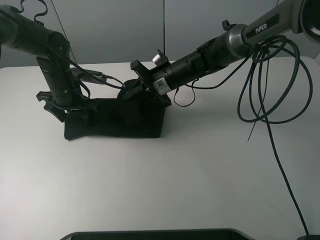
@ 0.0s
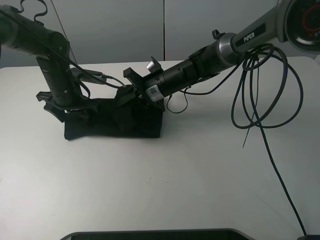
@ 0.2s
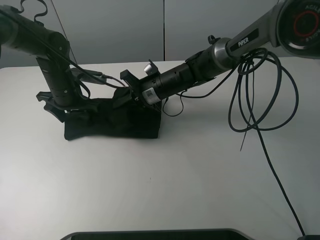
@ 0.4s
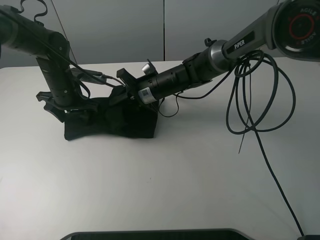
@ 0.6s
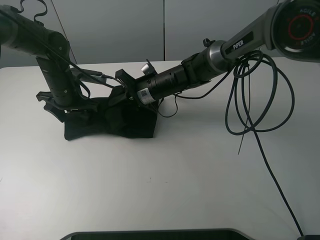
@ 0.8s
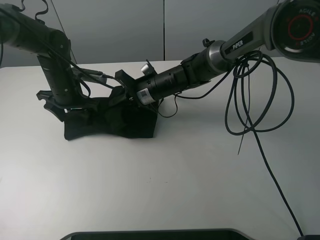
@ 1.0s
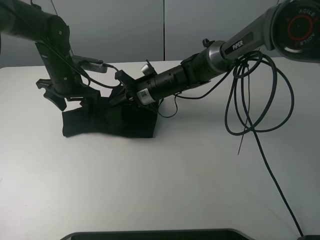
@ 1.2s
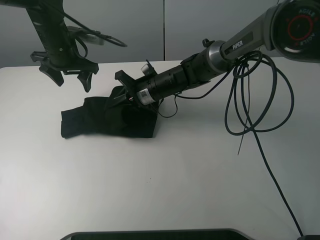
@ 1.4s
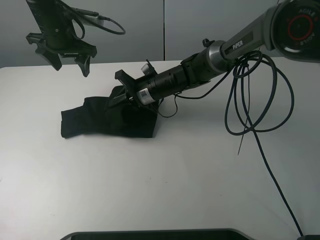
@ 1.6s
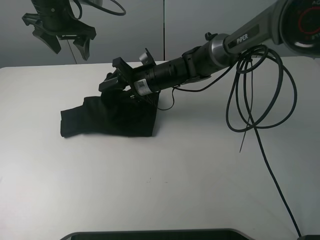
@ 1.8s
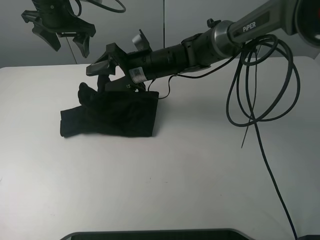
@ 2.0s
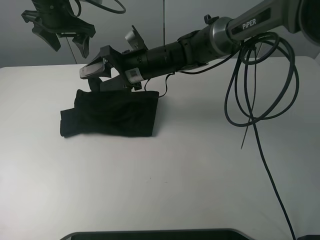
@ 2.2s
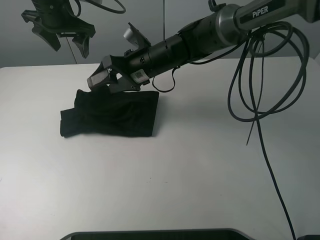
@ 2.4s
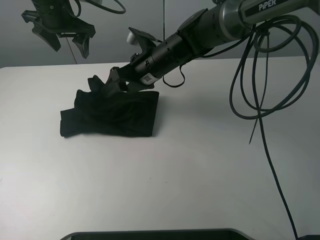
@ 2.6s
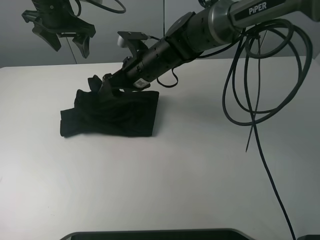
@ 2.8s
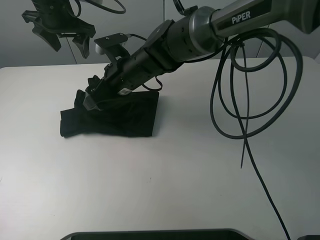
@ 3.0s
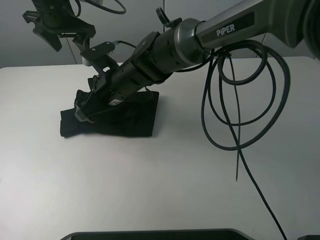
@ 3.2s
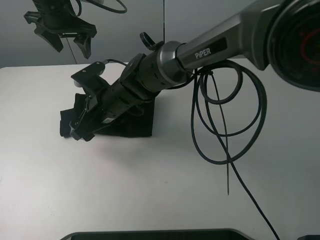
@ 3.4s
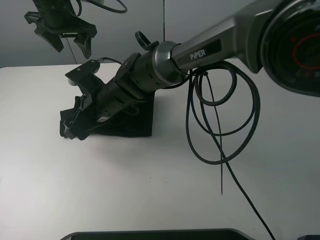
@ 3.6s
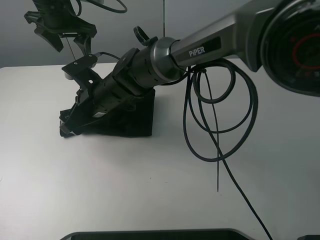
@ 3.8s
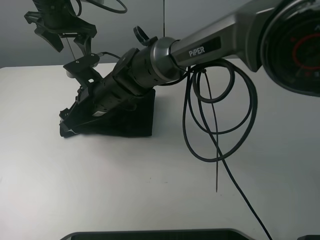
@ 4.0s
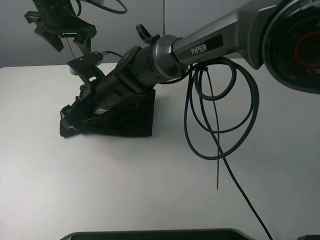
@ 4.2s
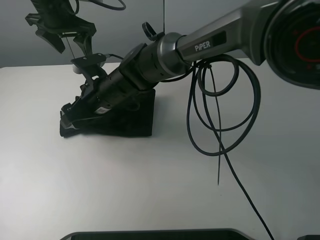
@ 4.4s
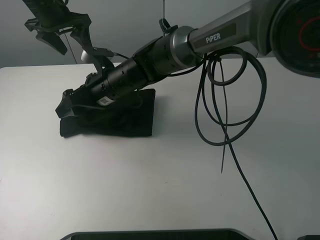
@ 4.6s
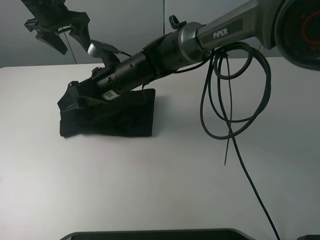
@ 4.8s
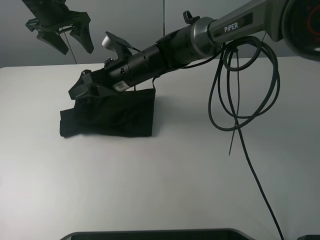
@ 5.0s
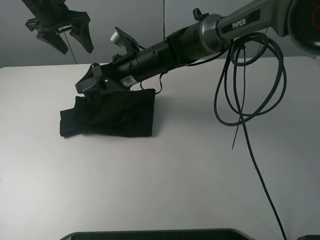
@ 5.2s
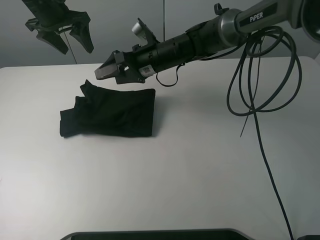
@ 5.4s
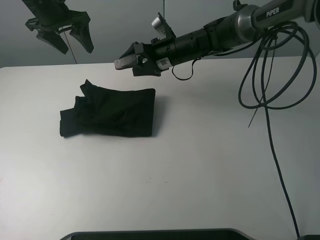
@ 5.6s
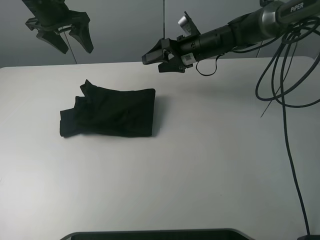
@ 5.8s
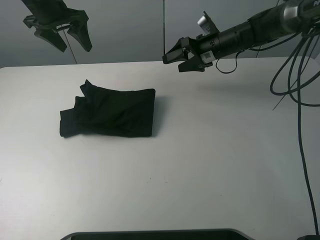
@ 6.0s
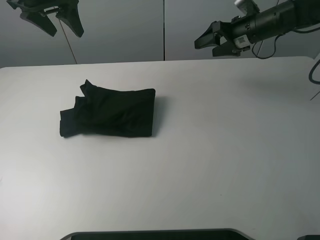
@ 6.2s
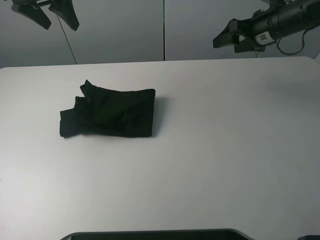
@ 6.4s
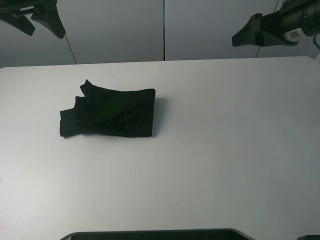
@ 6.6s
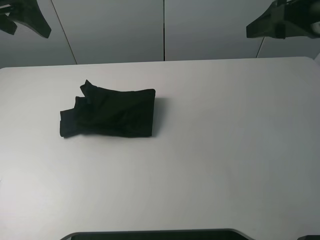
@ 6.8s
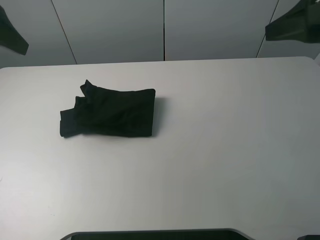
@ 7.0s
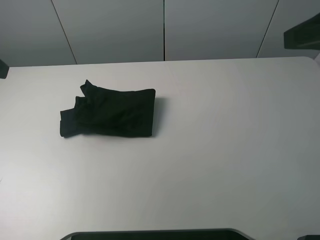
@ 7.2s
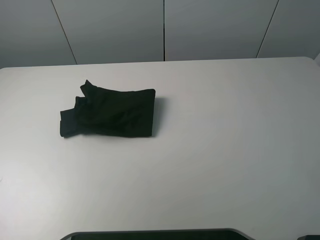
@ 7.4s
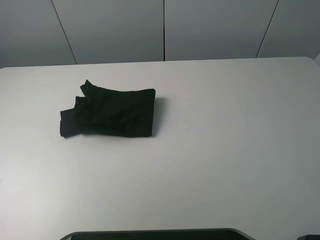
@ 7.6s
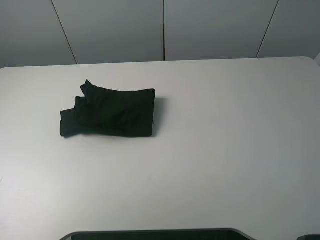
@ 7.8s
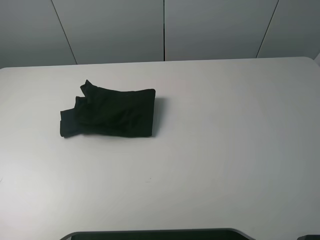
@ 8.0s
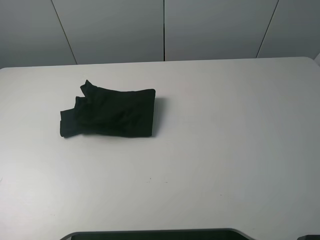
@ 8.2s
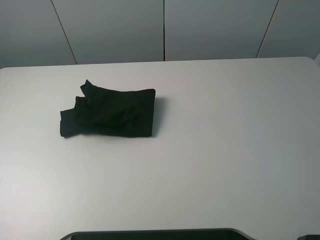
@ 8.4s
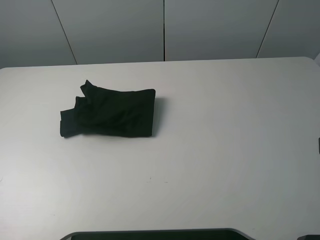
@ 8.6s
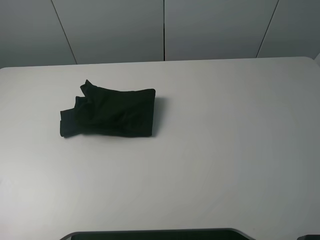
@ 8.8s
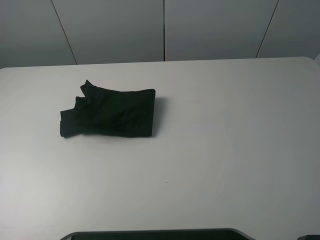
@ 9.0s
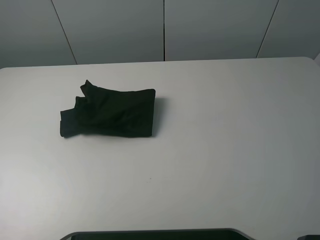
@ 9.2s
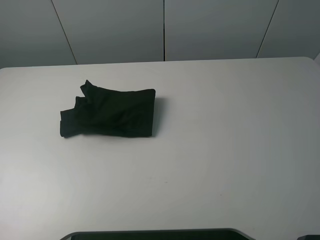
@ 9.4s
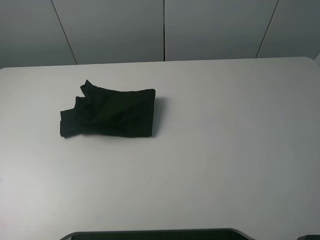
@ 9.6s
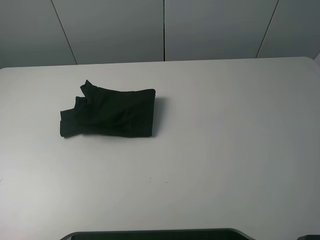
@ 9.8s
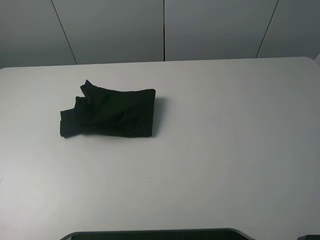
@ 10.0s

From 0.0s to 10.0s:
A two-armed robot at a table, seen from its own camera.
Task of the whole recording: fold the clothes on the table.
Step, from 0.0s to 5.0s: Fold the black T-shirt from right to left with right gripper.
From 0.0s to 1.4s: The left gripper heads upward, covering about 10 cm.
From 1.4s to 2.8s: Both grippers travel together upward, roughly 5 cm. The right gripper opens.
From 2.8s to 4.2s: The right gripper shifts about 10 cm to the left and backward.
From 4.2s to 5.8s: The right gripper heads to the right and forward, covering roughly 25 cm.
From 5.8s to 7.2s: The right gripper goes about 40 cm backward, upward and to the right, while the left gripper is displaced backward by about 25 cm.
From 7.2s to 8.6s: The right gripper heads backward and downward, covering some 15 cm. Meanwhile the left gripper travels backward by roughly 20 cm.

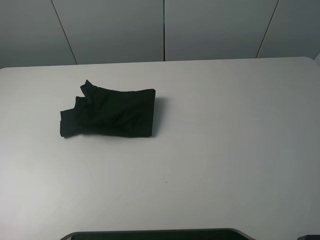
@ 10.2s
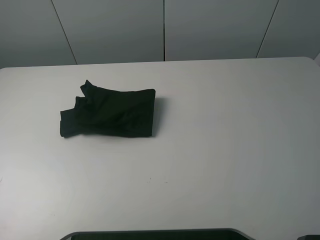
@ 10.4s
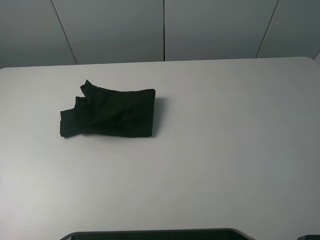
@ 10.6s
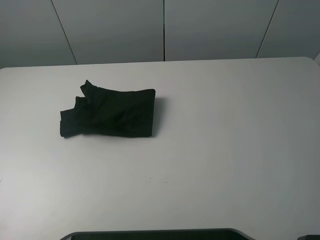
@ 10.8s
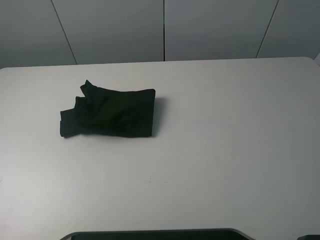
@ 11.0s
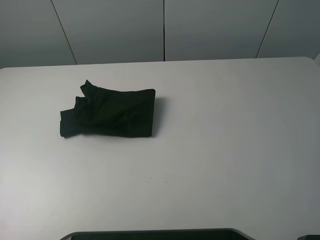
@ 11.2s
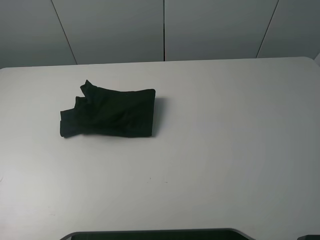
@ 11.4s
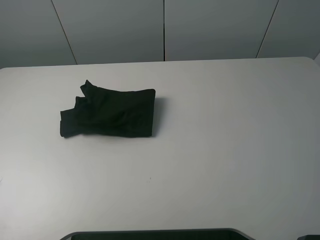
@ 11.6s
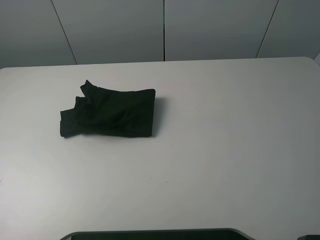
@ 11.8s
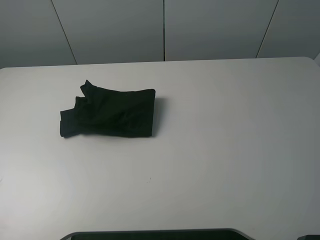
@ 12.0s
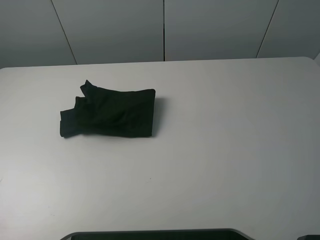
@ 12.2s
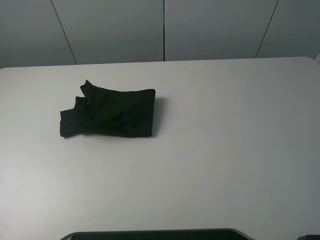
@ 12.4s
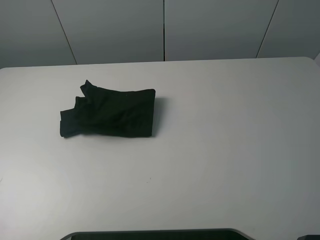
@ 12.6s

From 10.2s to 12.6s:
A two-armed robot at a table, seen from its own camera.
Task of the whole recording: fold the clothes on the table.
From 11.4s to 12.6s: Neither gripper changes place.

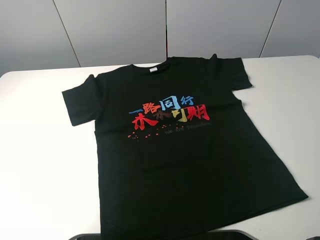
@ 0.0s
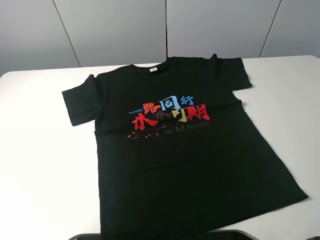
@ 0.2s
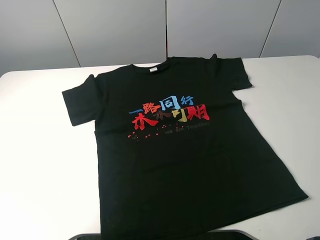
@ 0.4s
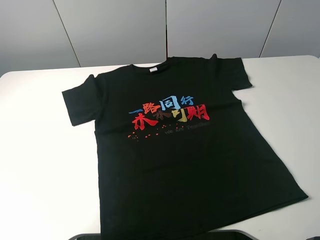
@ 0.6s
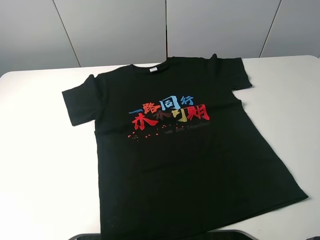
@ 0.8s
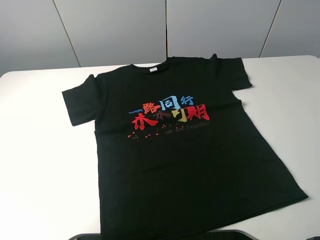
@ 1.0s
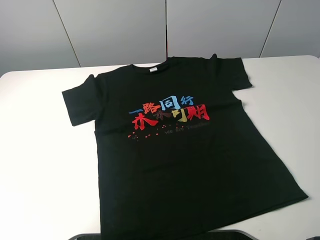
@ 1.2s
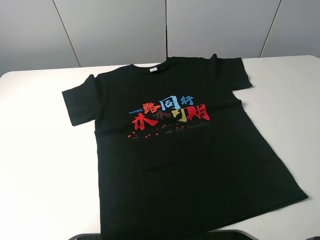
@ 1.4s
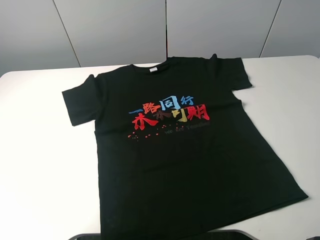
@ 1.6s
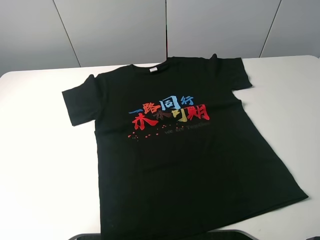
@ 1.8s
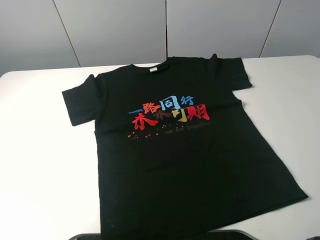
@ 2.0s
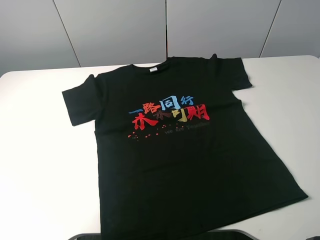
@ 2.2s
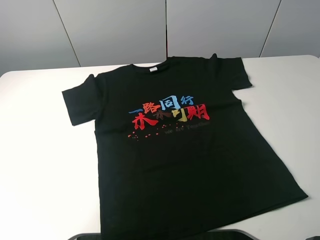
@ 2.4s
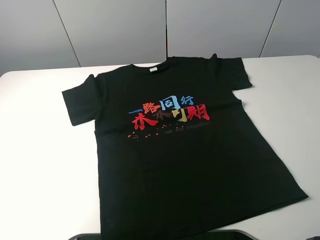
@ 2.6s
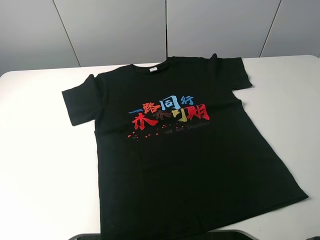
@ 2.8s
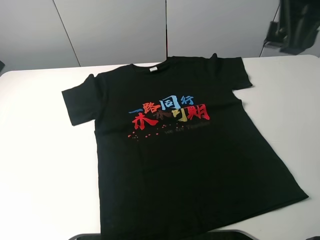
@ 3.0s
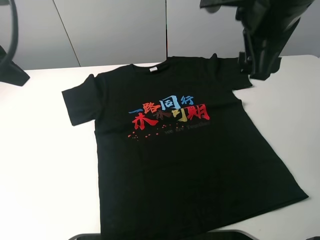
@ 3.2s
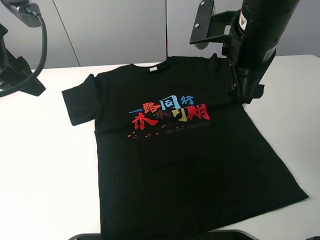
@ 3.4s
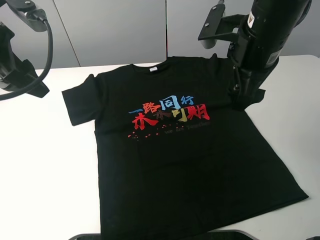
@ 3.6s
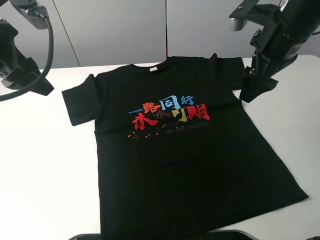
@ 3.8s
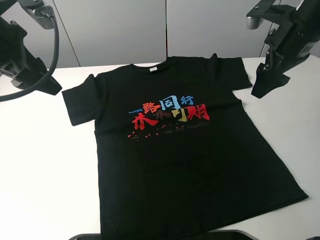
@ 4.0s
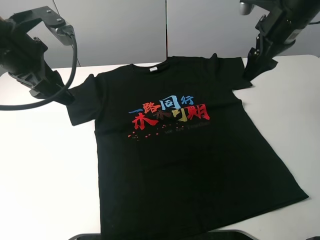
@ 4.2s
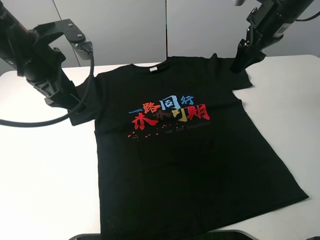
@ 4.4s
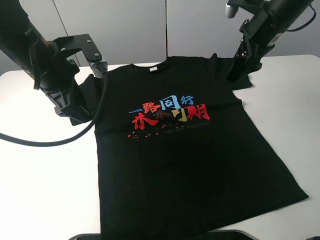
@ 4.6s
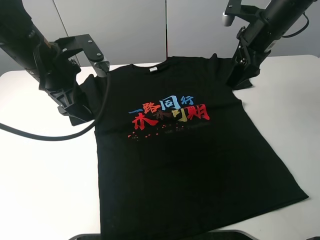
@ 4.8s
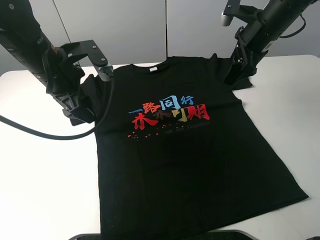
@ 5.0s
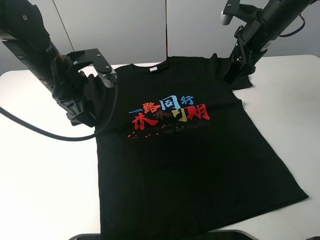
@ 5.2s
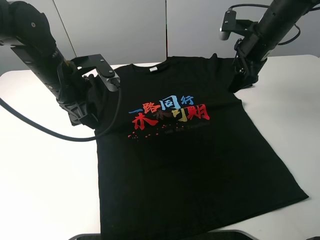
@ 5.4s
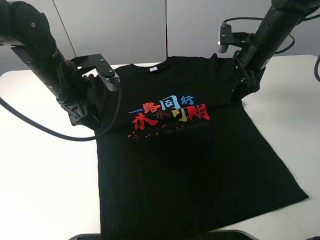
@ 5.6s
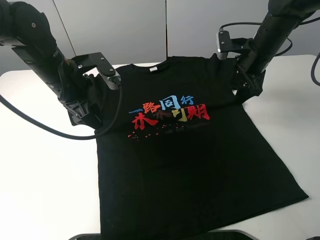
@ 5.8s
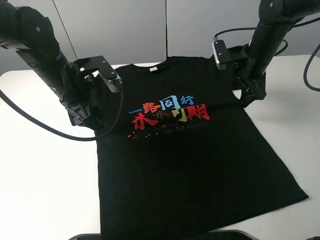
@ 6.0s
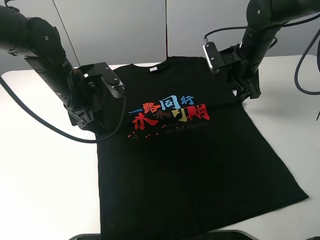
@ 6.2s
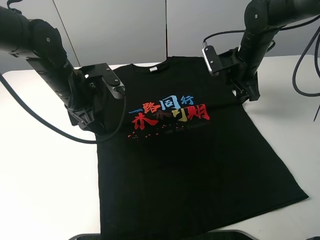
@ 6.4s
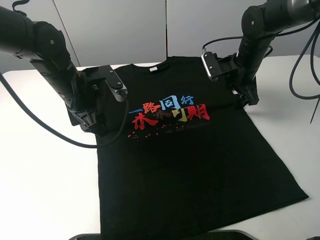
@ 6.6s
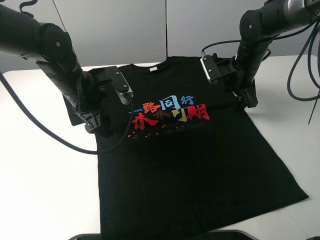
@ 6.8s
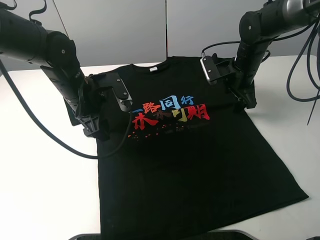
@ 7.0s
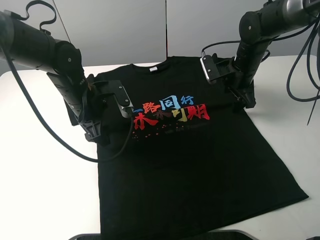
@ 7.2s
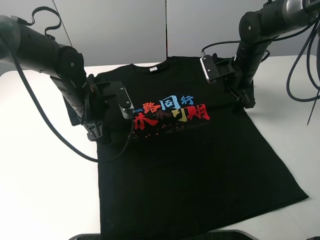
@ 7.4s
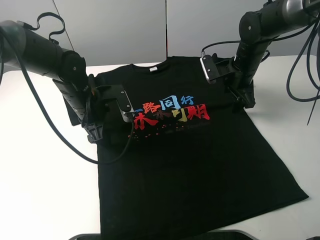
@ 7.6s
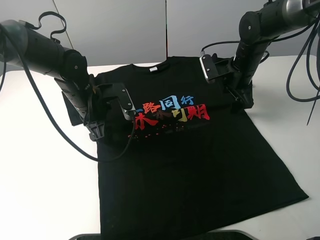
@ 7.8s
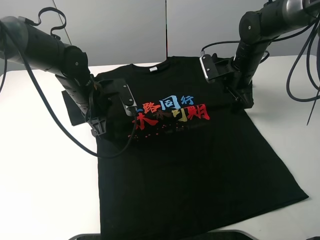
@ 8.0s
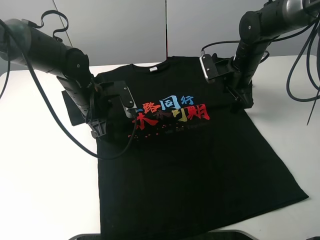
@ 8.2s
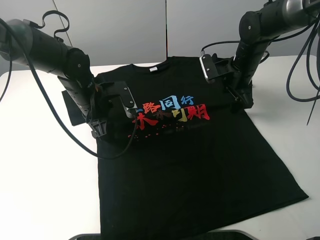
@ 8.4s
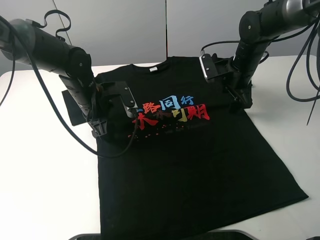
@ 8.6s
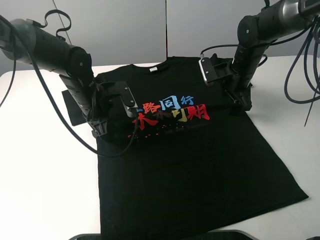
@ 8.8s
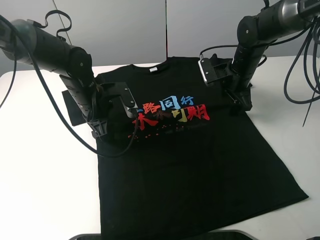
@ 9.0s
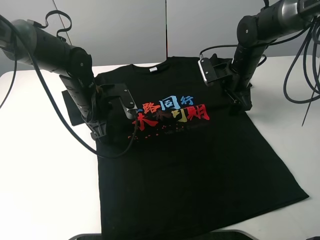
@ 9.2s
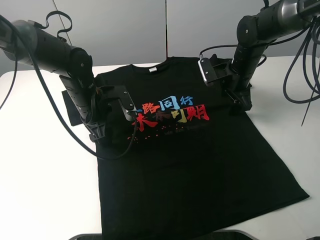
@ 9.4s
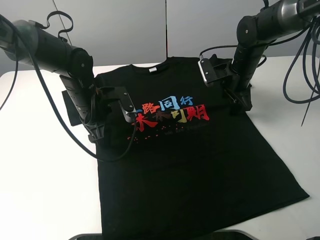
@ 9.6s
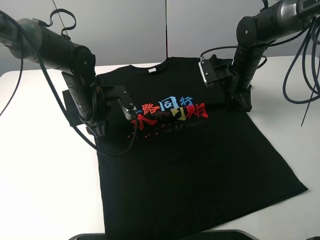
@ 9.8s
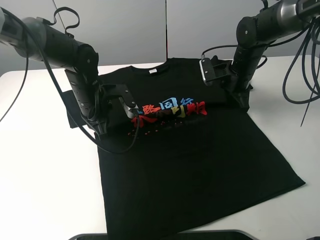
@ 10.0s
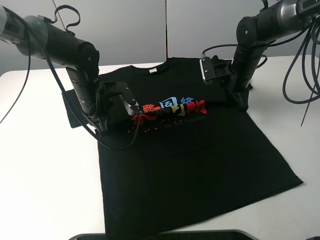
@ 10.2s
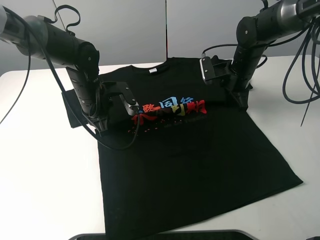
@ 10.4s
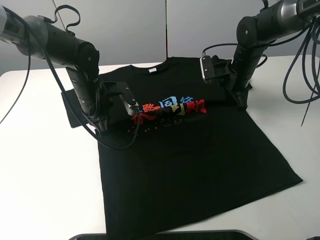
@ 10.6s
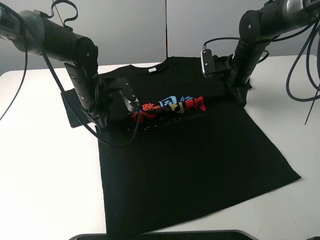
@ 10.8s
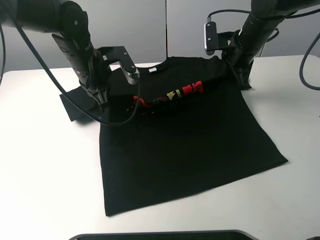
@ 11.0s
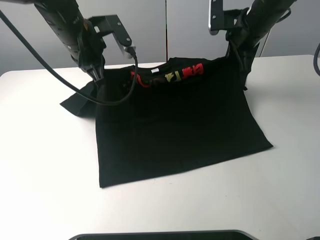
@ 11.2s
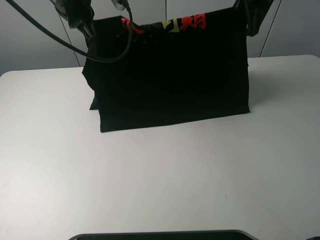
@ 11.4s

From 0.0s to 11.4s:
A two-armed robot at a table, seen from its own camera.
Task of the whole recording: fold the clothes on the table.
Step, from 0.0s to 10.6s: Lift the black T-shirt with the left gripper.
From 0.0s to 1.4s: Both grippers stay about where they are.
From 2.8s to 4.2s: The right gripper moves forward and downward, some 25 cm. The left gripper moves downward, forward and to the right, some 20 cm.
From 4.2s to 5.6s: The grippers both shift downward by approximately 10 cm.
From 5.6s to 7.2s: Both grippers move downward, approximately 5 cm.
From 7.2s to 8.6s: The grippers move only a little.
From 8.6s to 10.0s: The left gripper closes. Meanwhile the right gripper closes.
From 10.0s to 11.4s: Both grippers travel together upward, roughly 20 cm.
